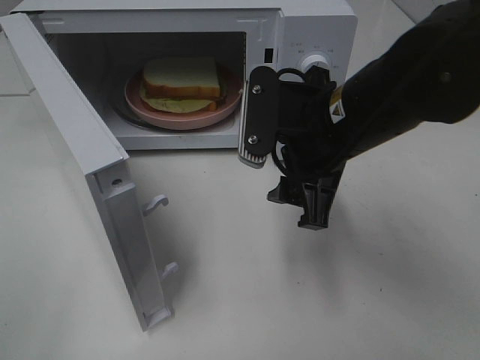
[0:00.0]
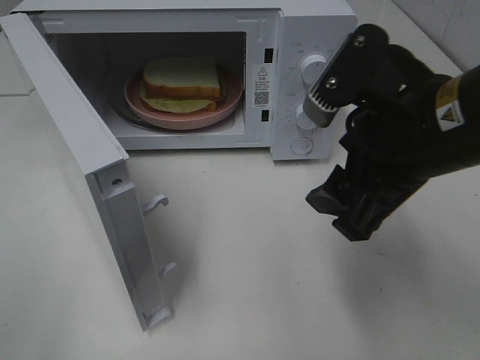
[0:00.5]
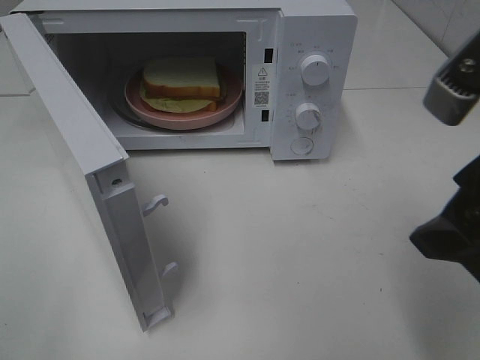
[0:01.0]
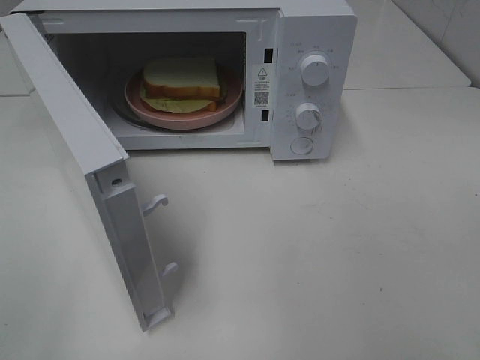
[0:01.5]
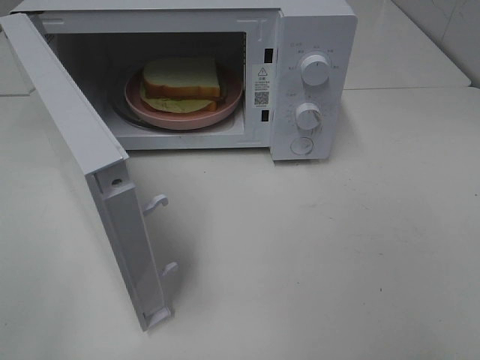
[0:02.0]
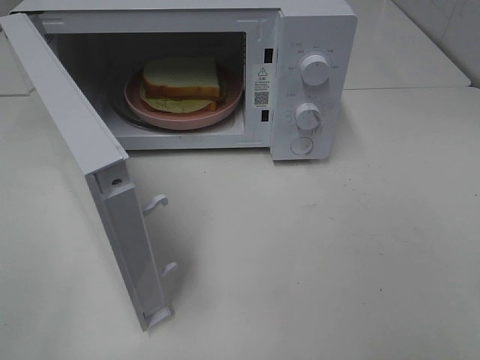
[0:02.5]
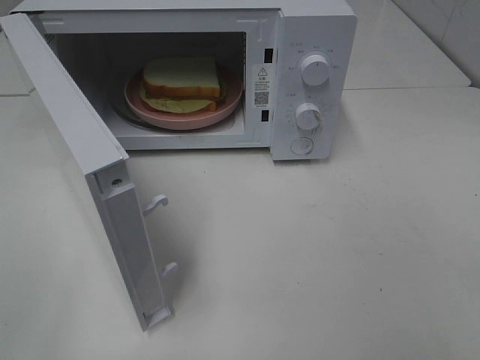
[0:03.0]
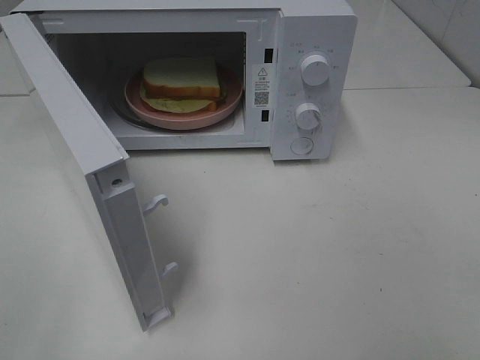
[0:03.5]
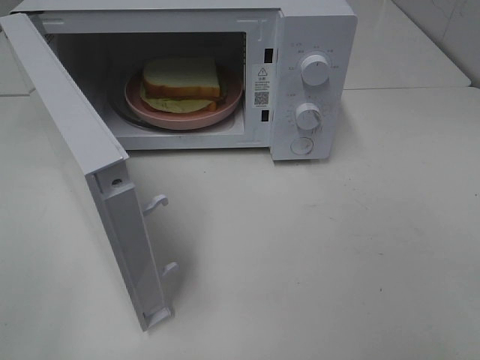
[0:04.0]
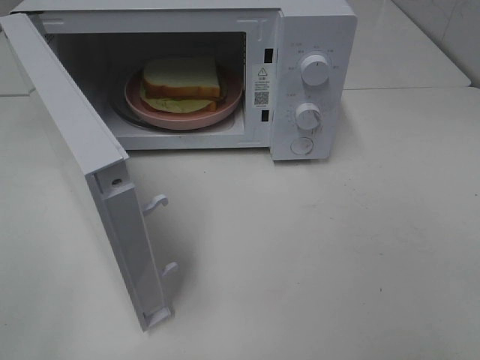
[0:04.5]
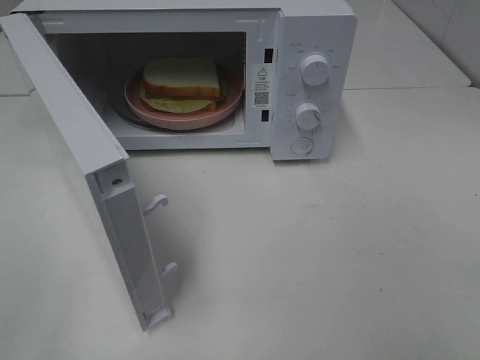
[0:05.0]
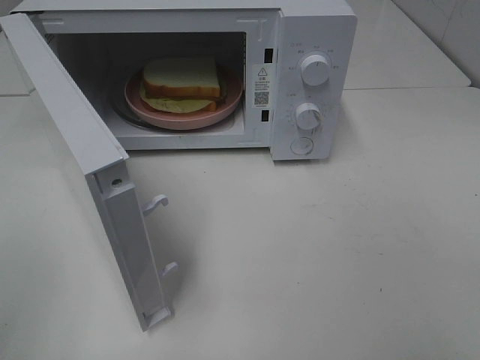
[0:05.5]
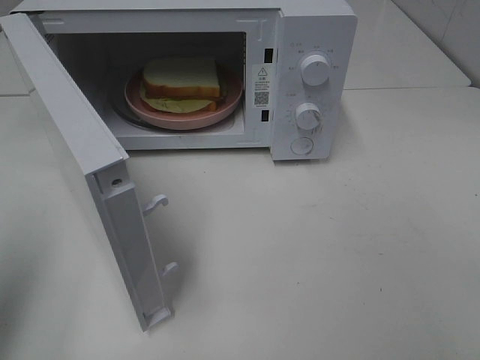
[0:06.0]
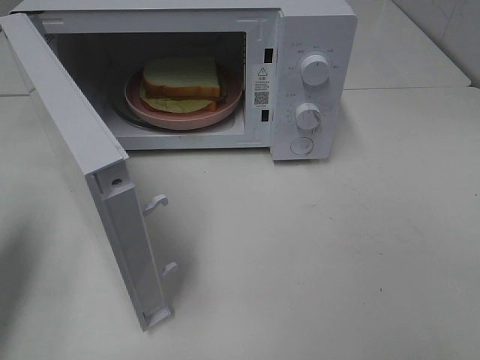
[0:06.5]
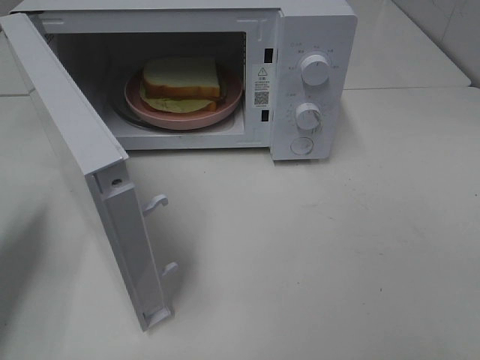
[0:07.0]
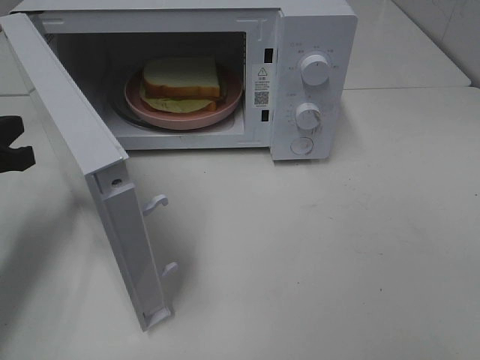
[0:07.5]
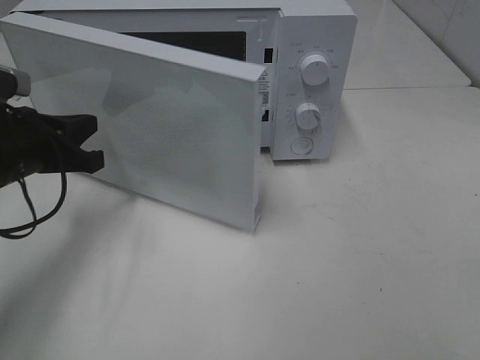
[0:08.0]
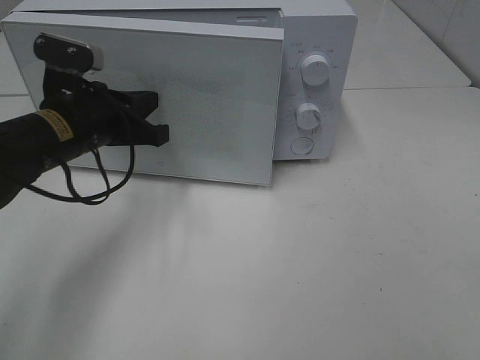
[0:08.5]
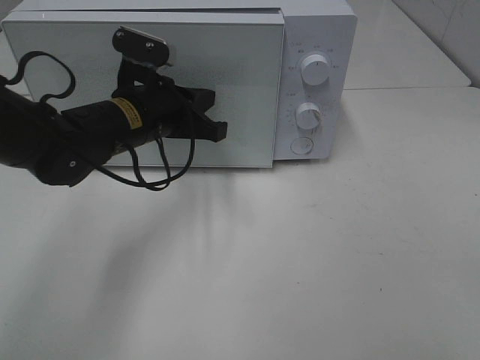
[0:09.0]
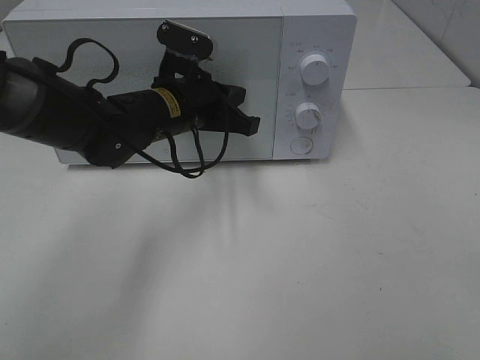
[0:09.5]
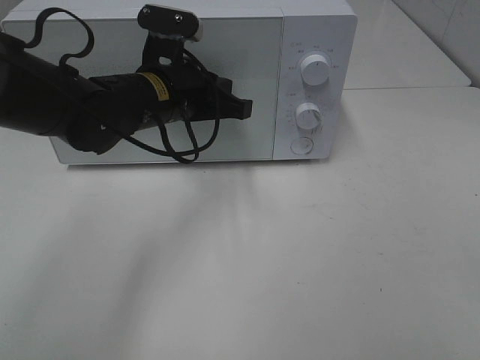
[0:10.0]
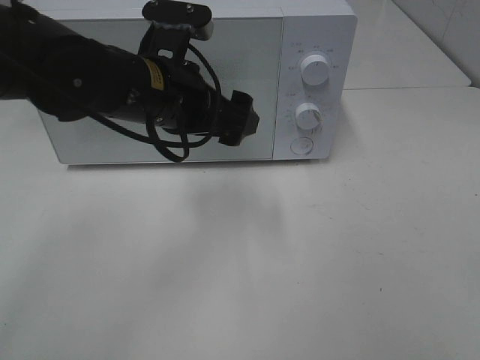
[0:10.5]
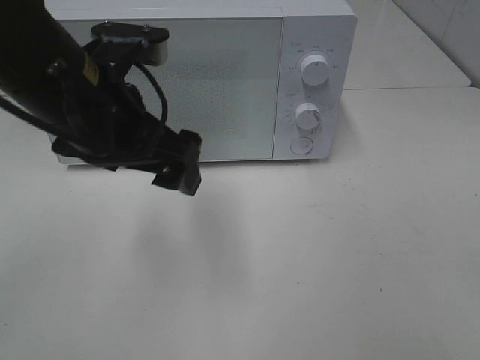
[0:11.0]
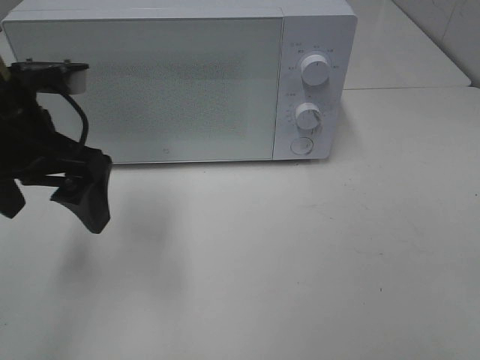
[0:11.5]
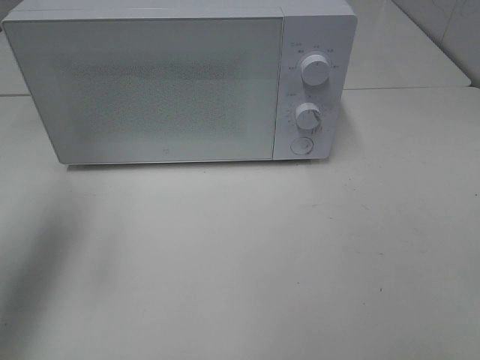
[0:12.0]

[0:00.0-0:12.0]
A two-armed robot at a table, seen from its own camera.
Task of the whole recording: Heat Sandwich.
Step, 0:00.0 to 0:10.5: Left hand: close the microwave door.
0:00.0 to 0:02.0: The right gripper heads backward, to the right and upward, covering some 35 cm.
0:04.0 to 0:06.0: The left gripper travels forward by approximately 15 cm, and closes up.
0:06.0 to 0:08.0: The left gripper is displaced forward, downward and to the right by roughly 25 cm.
0:08.0 to 0:10.0: The left gripper shifts some 15 cm to the right and forward.
0:10.0 to 0:12.0: The left gripper moves to the left, upward and backward, roughly 25 cm, and opens its fingers.

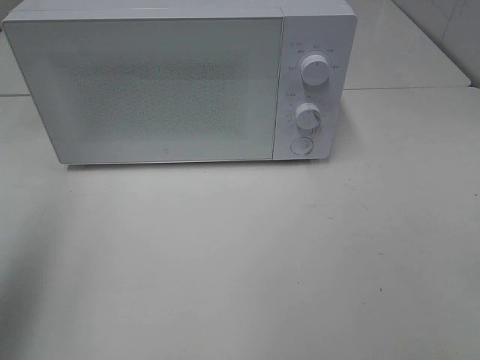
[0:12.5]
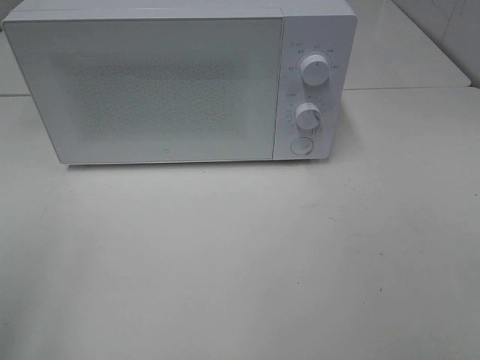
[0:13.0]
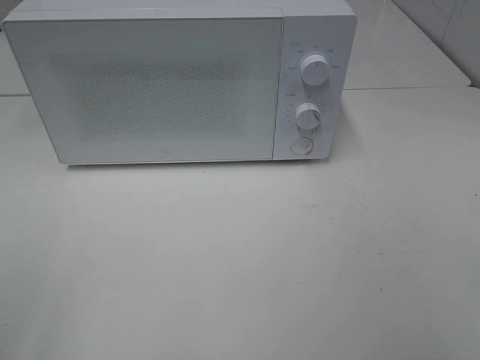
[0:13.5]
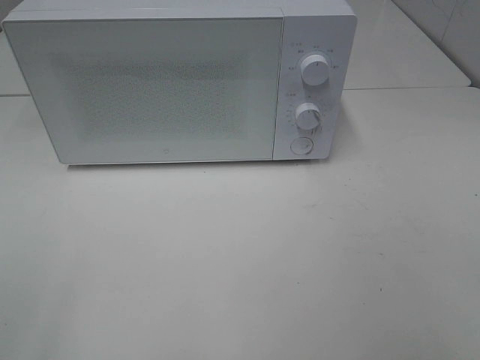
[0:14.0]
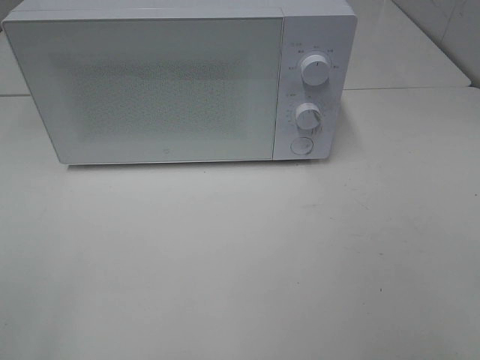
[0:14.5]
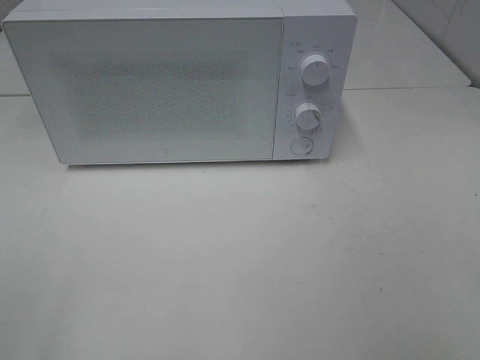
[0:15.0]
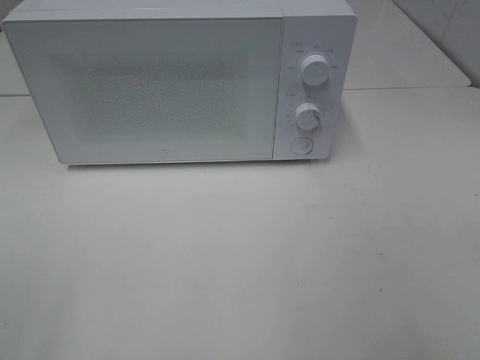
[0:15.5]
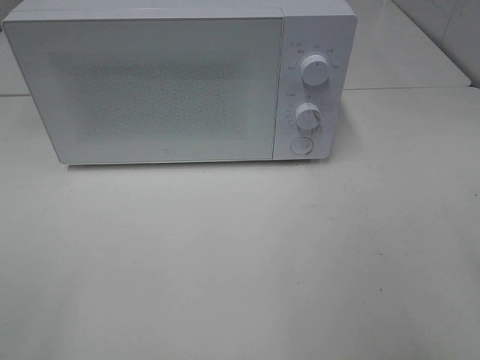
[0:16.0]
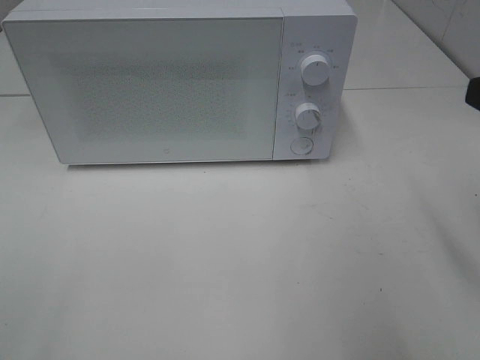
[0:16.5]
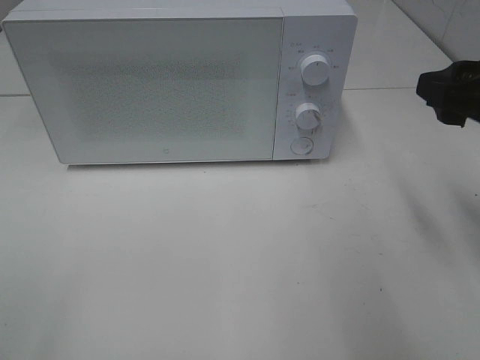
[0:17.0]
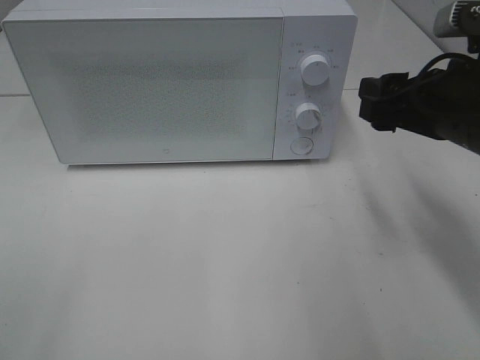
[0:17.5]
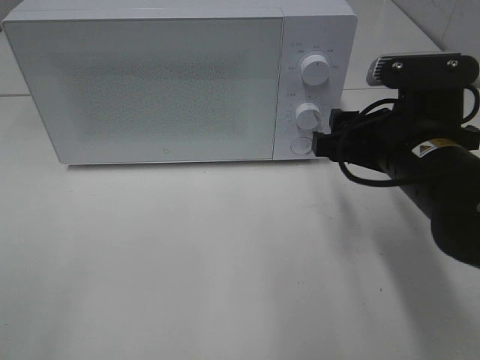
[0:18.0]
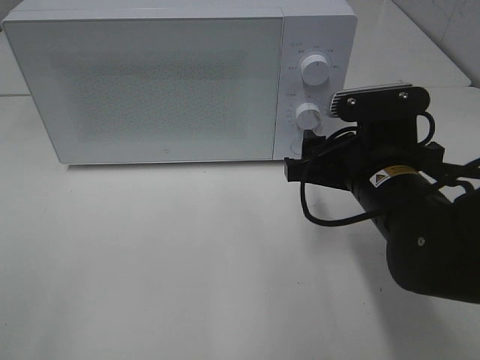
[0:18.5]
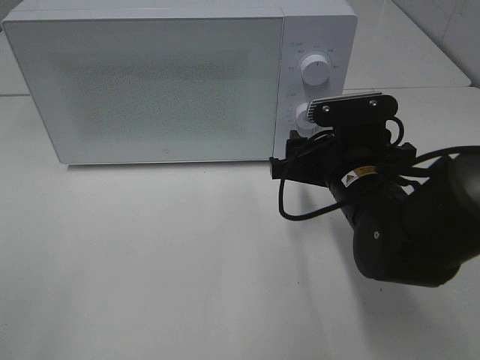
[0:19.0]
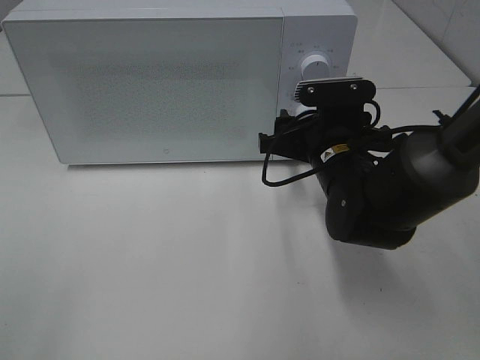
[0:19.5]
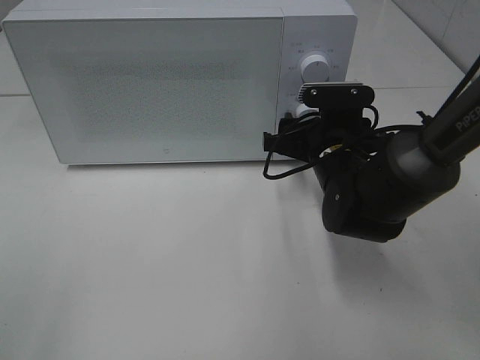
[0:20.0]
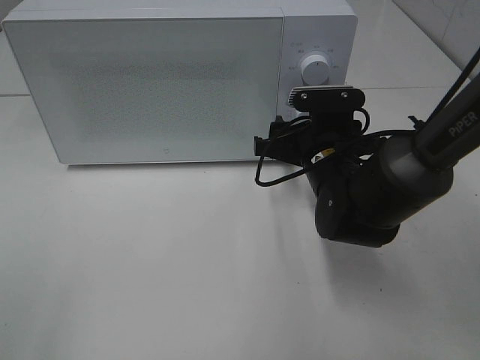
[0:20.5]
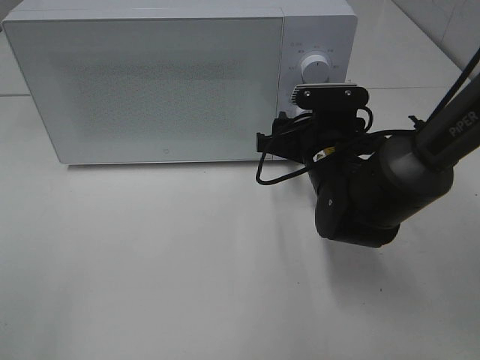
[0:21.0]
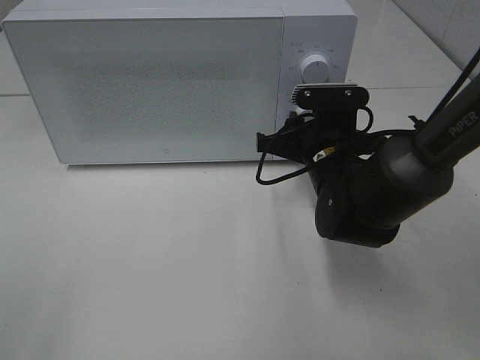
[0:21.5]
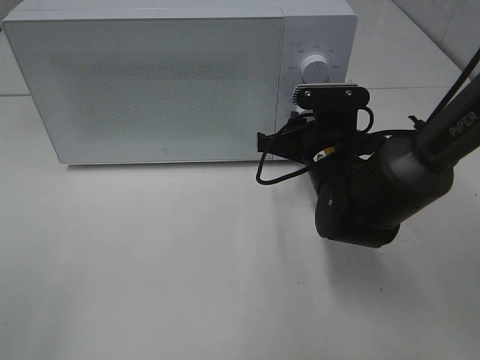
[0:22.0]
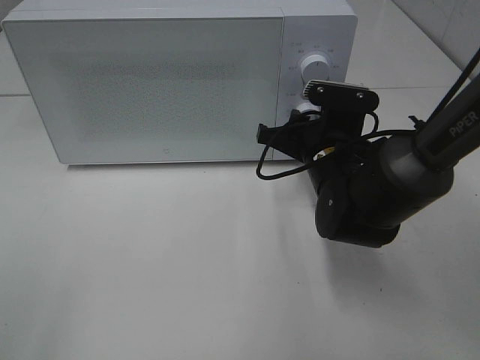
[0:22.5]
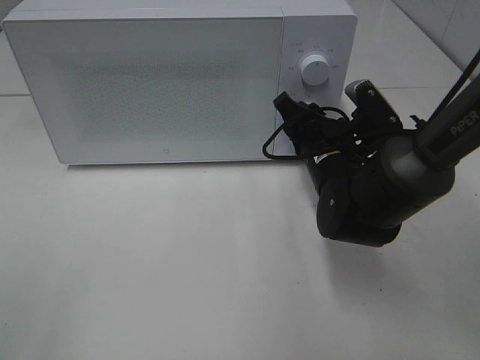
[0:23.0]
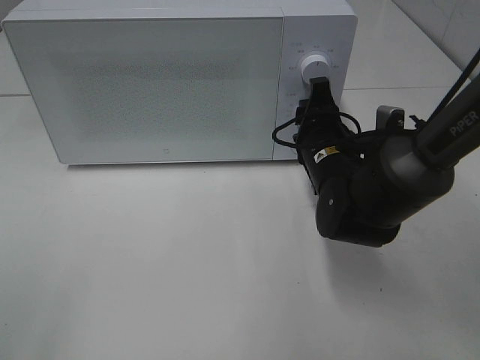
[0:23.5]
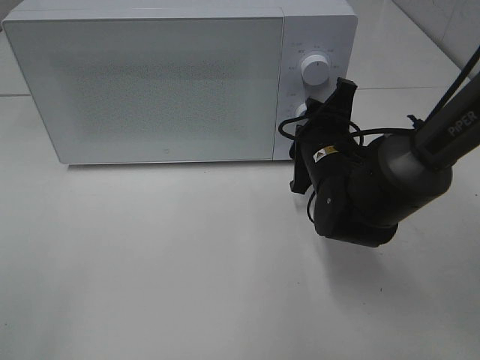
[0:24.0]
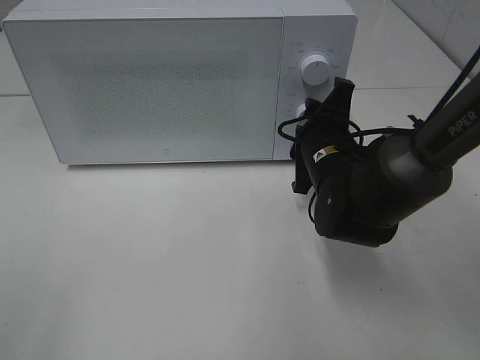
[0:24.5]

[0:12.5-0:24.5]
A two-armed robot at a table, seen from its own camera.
Task of the whole recording: Heat Sandwich.
0:12.5 to 0:14.5: The left gripper moves backward and downward, some 20 cm.
0:16.5 to 0:18.5: The right gripper travels downward, to the left and forward by approximately 20 cm.
0:18.5 to 0:20.5: The right gripper moves forward, approximately 10 cm.
0:20.5 to 0:22.5: The right gripper closes up.

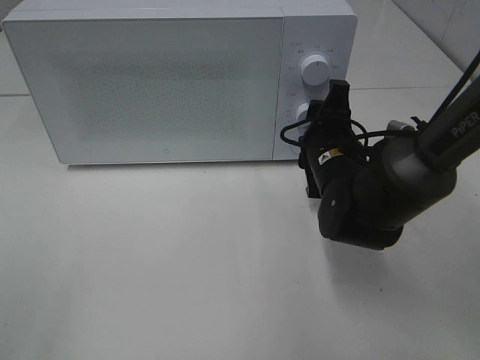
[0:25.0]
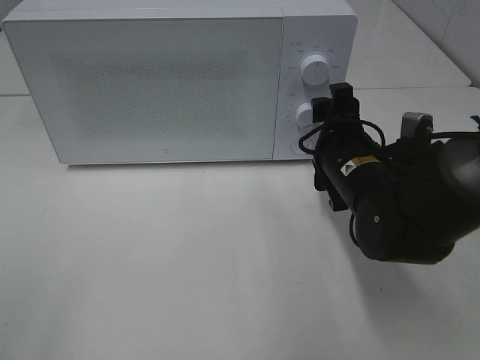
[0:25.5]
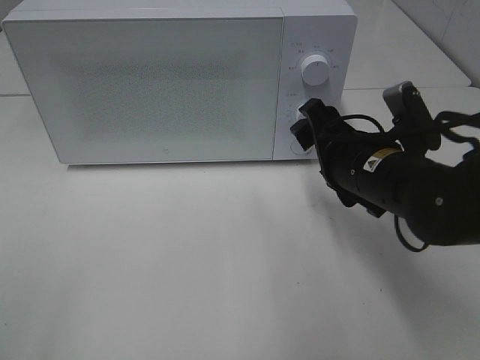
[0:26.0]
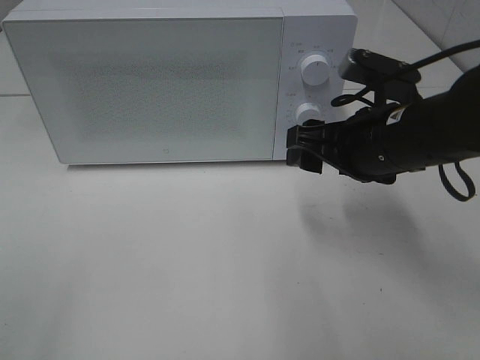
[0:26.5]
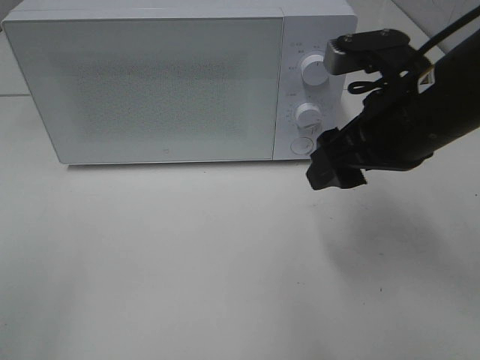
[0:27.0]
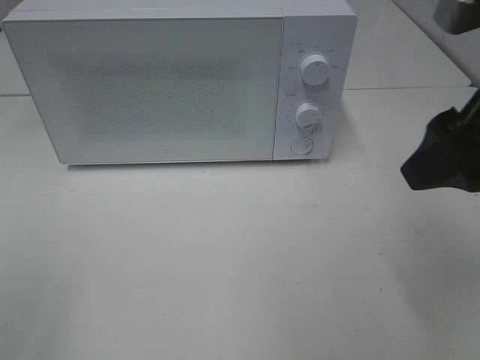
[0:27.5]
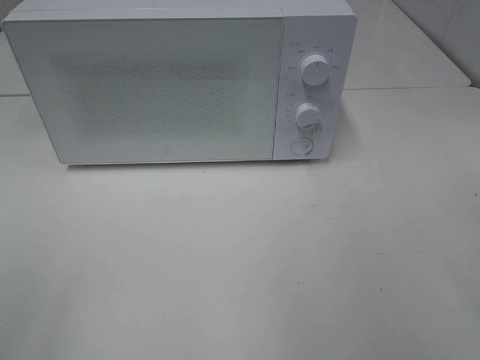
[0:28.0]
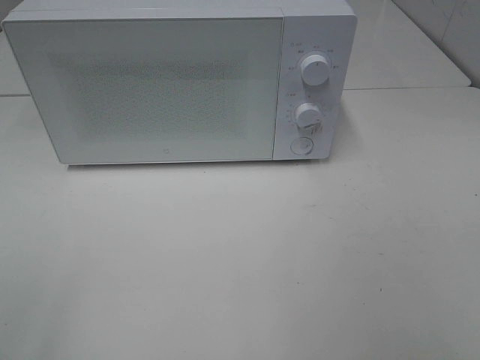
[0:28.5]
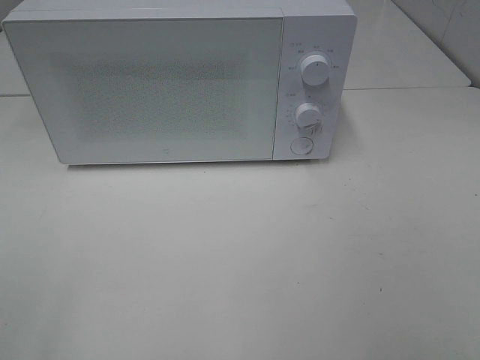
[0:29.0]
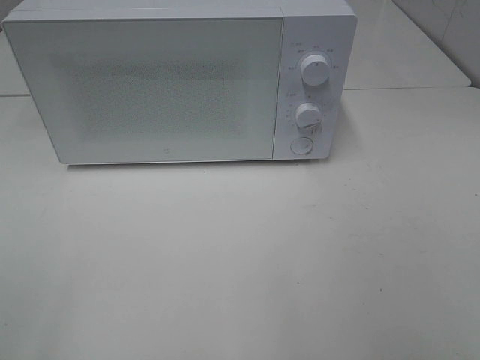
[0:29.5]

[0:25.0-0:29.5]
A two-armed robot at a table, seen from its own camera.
Task of the whole recording: Heat Sandwich.
0:25.0 to 0:27.0: The right gripper moves upward and backward, about 15 cm.
0:27.0 to 0:29.5: The right gripper travels backward and to the right by roughly 30 cm.
